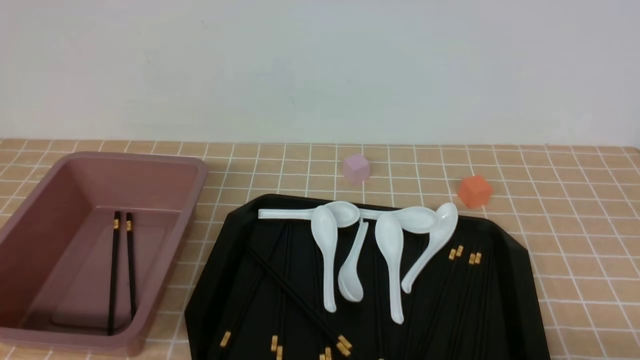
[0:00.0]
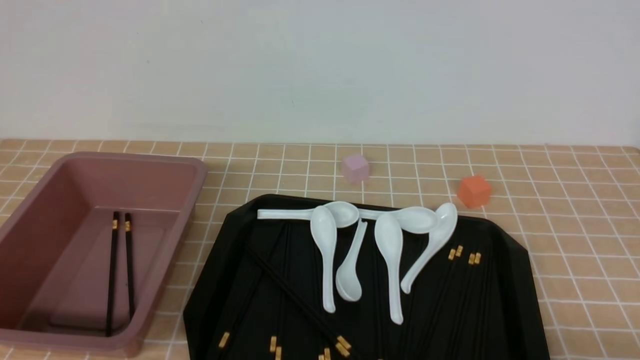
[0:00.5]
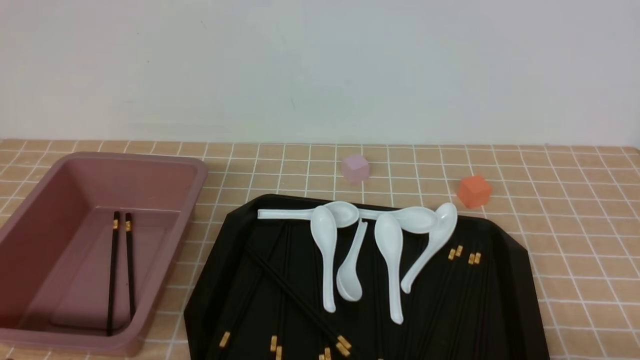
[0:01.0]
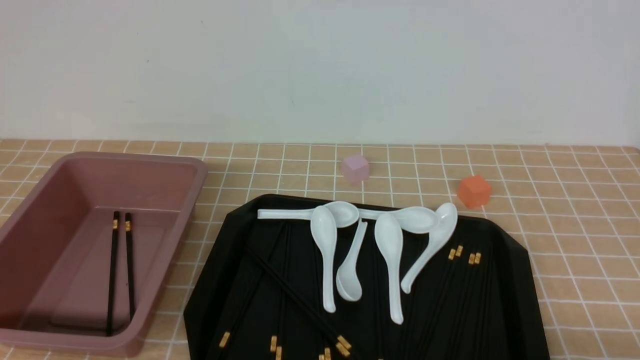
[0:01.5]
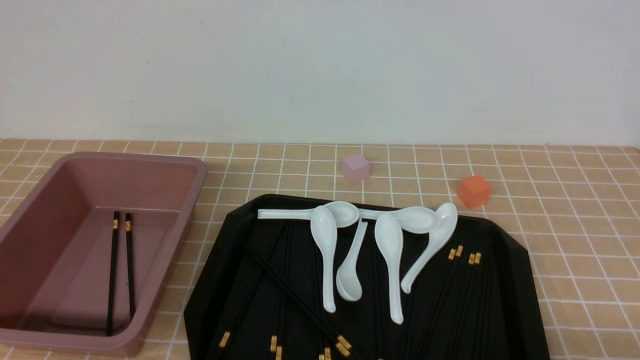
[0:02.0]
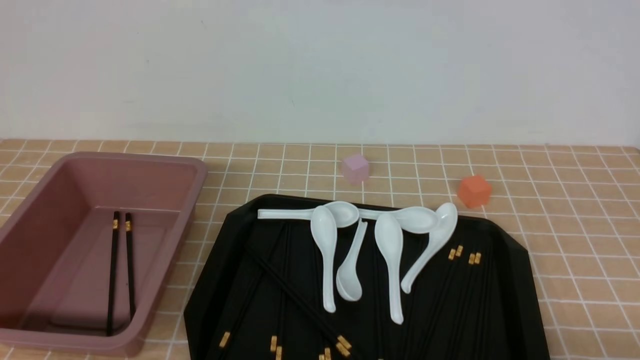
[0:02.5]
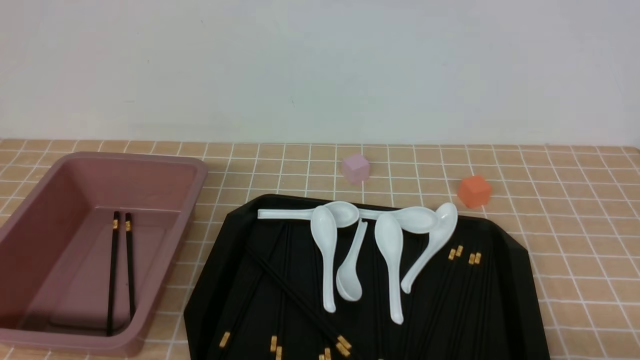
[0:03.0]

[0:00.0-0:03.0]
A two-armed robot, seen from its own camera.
0:00.0 to 0:01.5: The left gripper goes roughly 10 cm downward.
0:01.5 to 0:03.0: Both grippers stay put.
